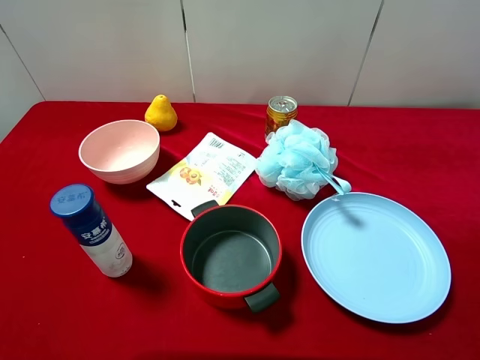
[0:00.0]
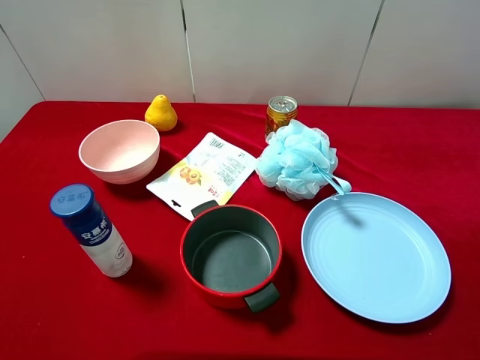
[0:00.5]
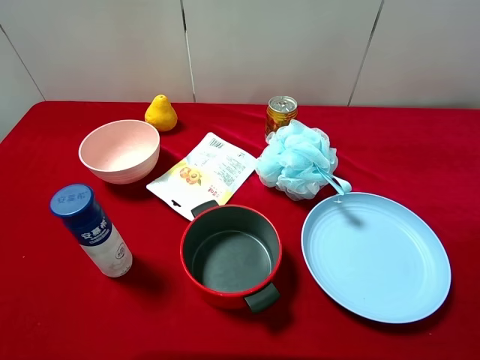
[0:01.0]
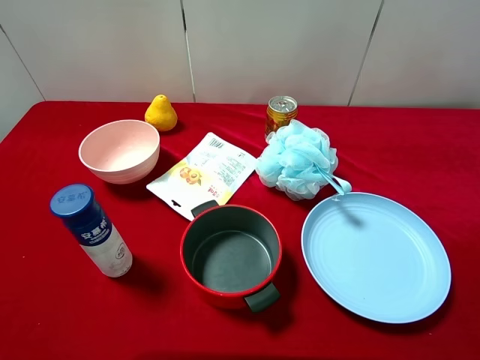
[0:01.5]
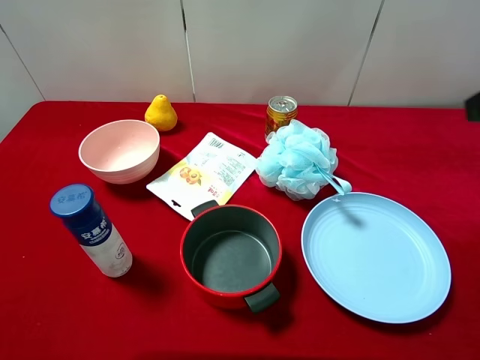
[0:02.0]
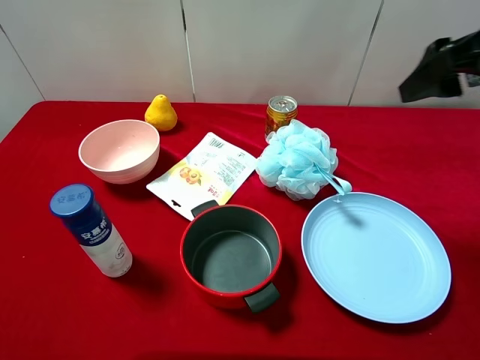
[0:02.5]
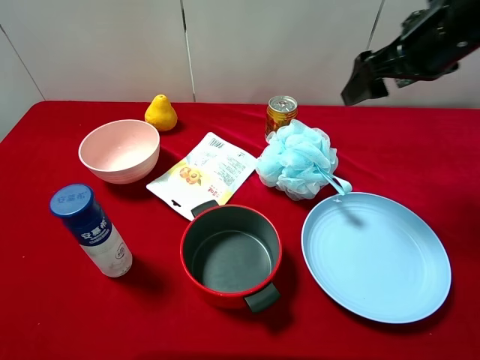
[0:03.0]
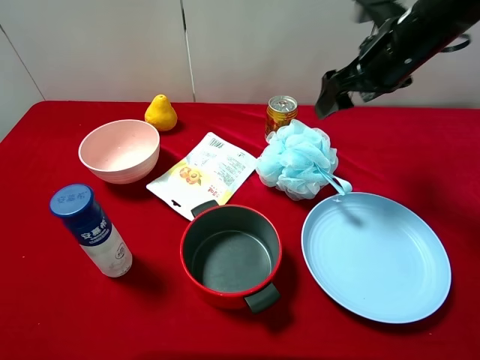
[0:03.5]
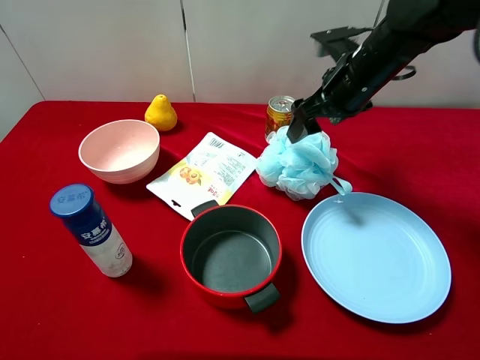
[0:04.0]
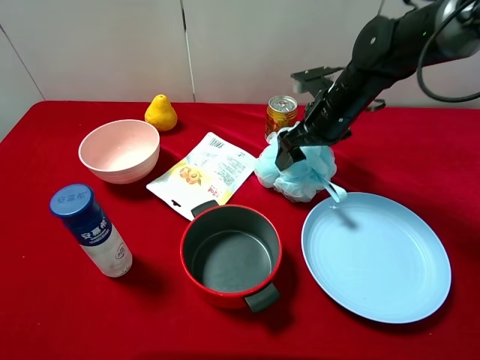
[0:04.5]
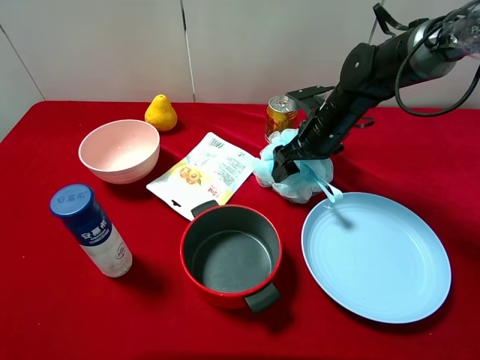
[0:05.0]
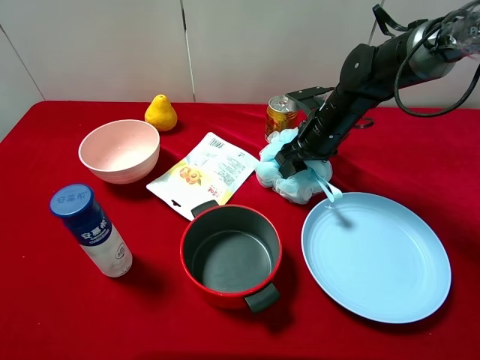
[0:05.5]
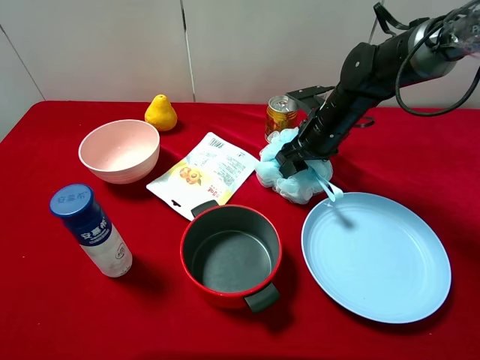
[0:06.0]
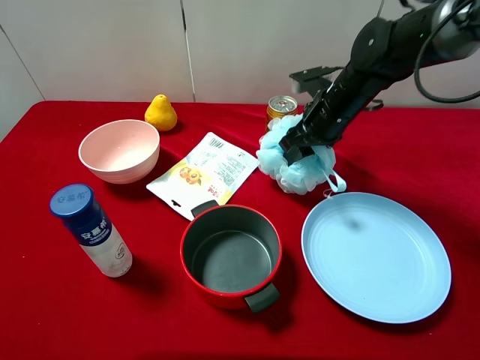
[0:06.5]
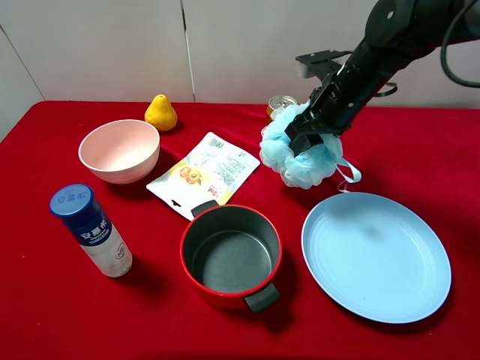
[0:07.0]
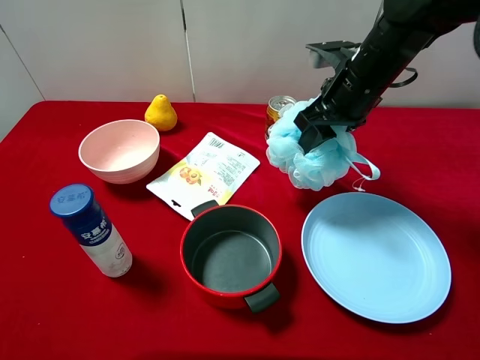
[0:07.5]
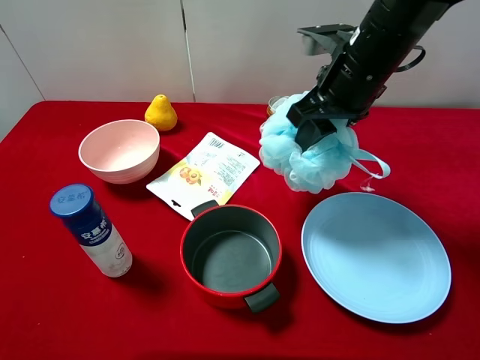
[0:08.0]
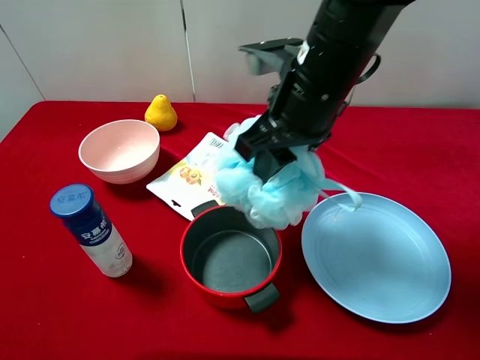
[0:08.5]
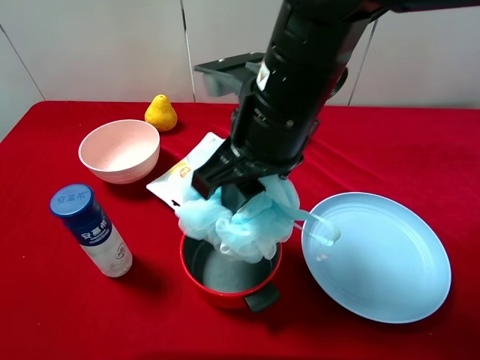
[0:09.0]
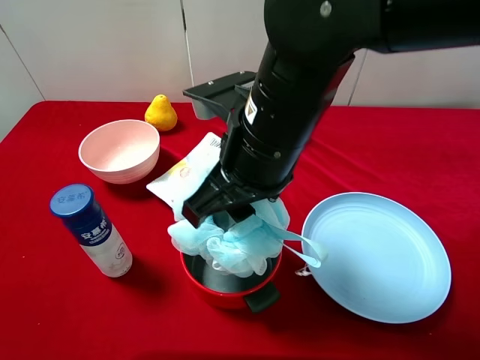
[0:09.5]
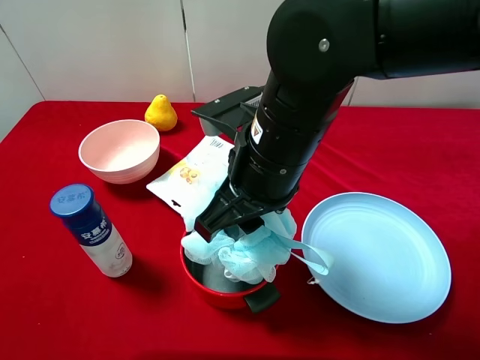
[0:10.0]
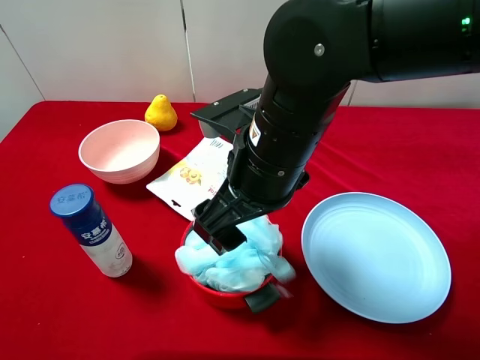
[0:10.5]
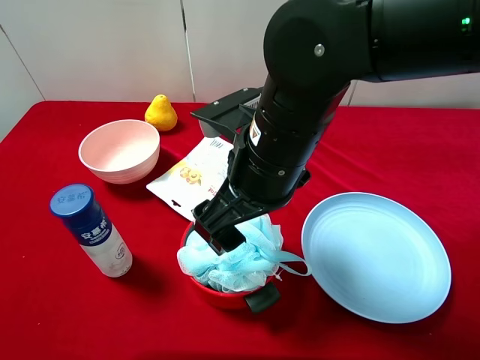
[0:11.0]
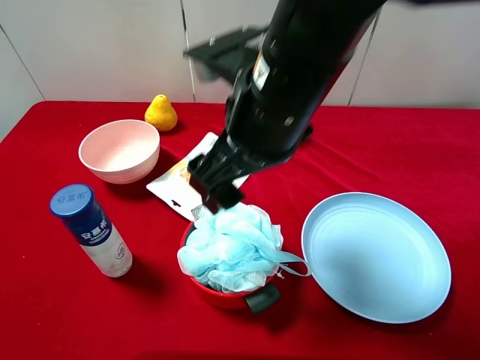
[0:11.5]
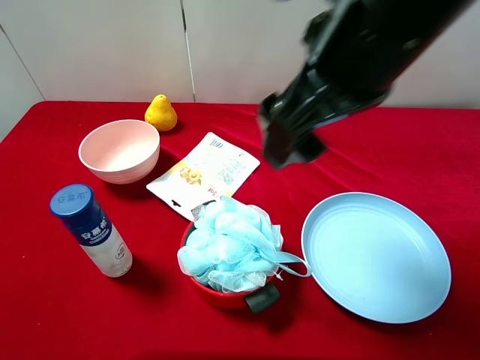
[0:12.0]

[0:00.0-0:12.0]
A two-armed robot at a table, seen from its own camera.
Task of the whole recording: pick up an item with a gripper and place it in a random container on the desktop.
0:02.0 to 0:04.0: The right gripper is displaced forward, downward and to the left by some 30 cm.
0:04.0 to 0:06.0: The right gripper goes approximately 10 cm downward, and closes up.
0:06.0 to 0:08.0: The right gripper goes some 15 cm upward and backward.
0:08.0 to 0:10.0: The right gripper shifts about 15 cm backward and to the left.
0:10.0 to 0:12.0: The right gripper heads upward and to the right, covering about 15 cm, and opens up.

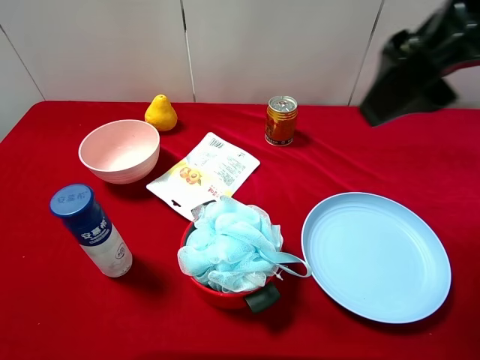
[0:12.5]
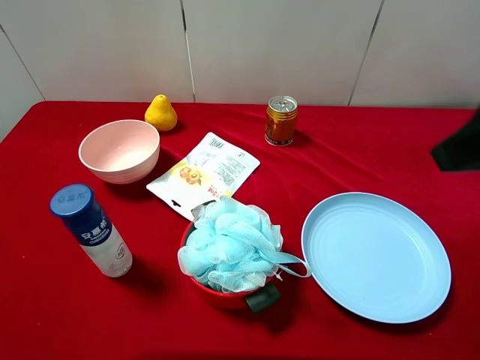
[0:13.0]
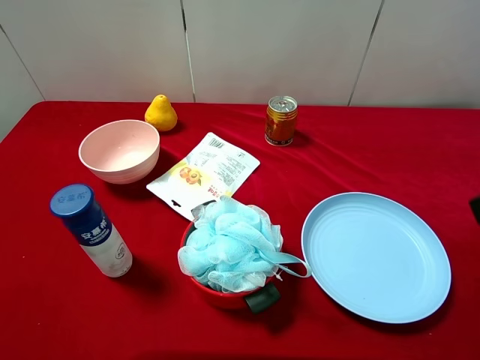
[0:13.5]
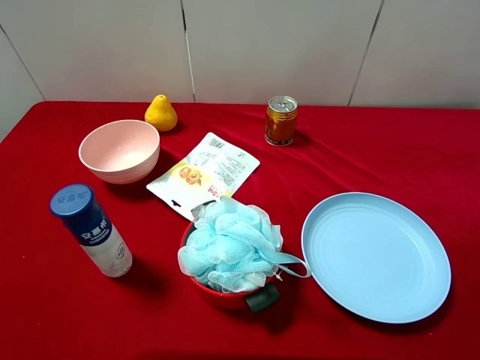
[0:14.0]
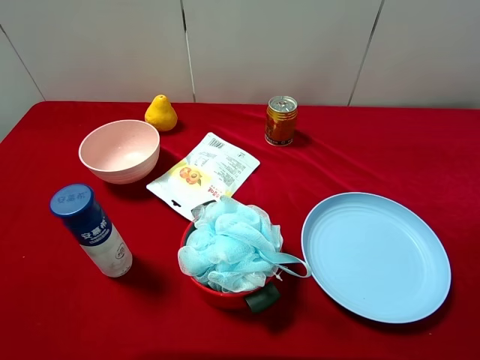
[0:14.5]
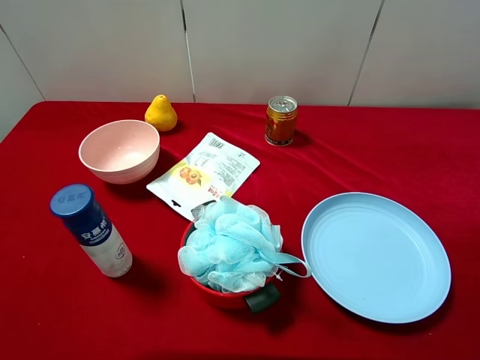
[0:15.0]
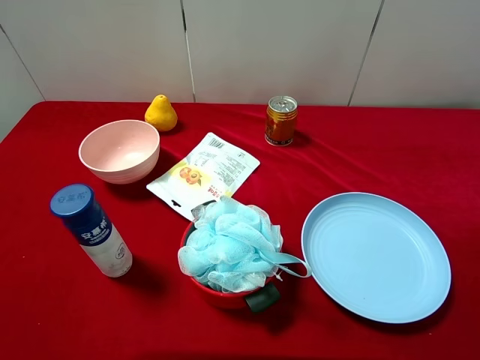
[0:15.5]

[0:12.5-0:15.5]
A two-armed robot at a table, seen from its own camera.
Task of the whole recording: pick up an item with a gripper and place it in a random container on the desktop.
0:12.5 to 0:14.0: The right gripper shifts some 20 cm backward, to the right and downward.
